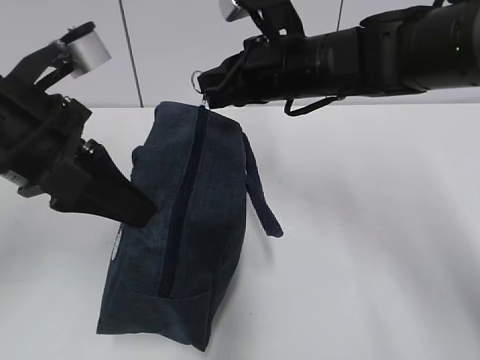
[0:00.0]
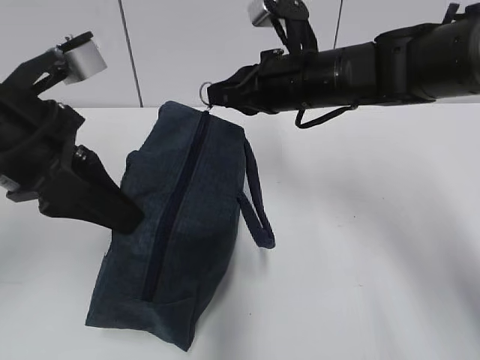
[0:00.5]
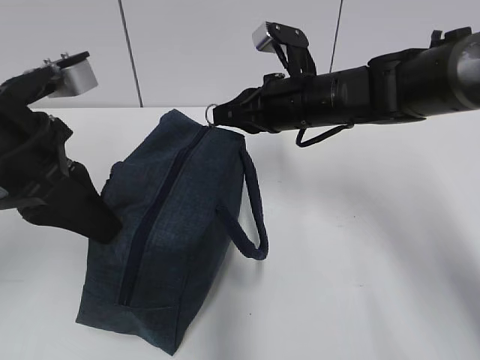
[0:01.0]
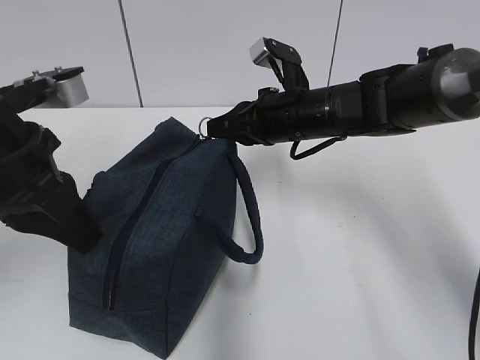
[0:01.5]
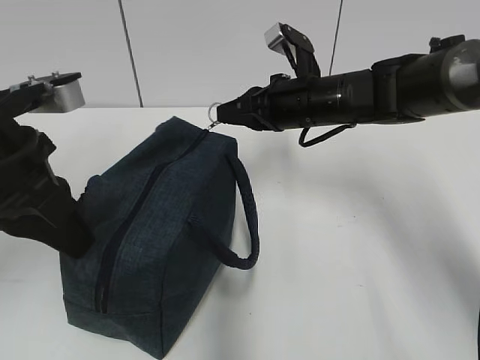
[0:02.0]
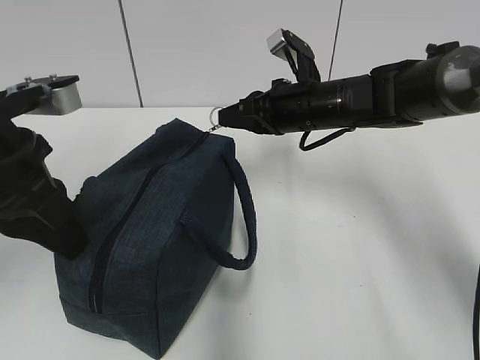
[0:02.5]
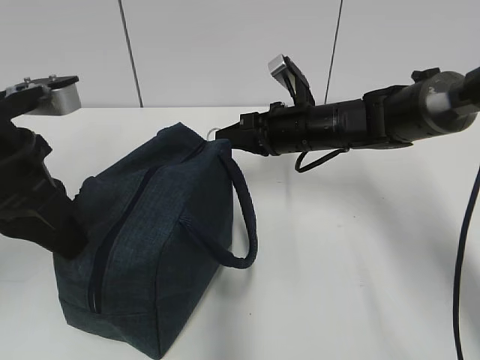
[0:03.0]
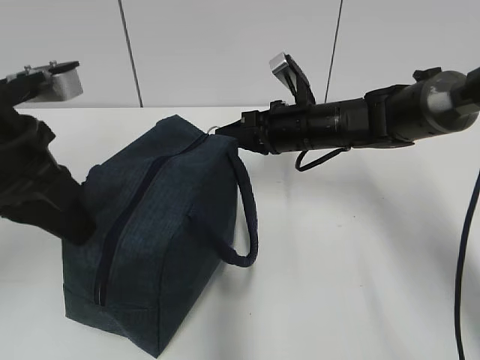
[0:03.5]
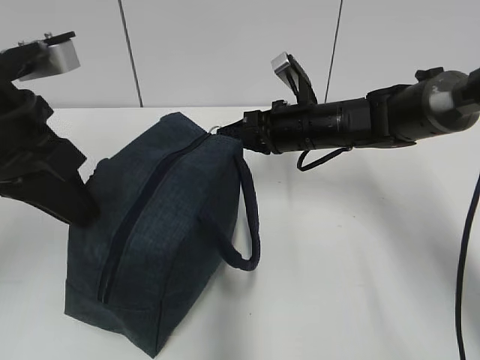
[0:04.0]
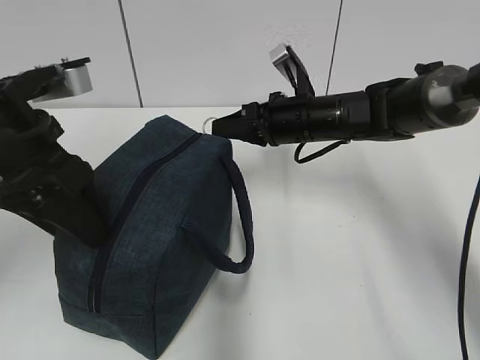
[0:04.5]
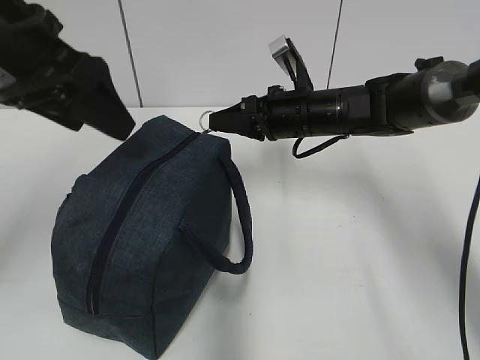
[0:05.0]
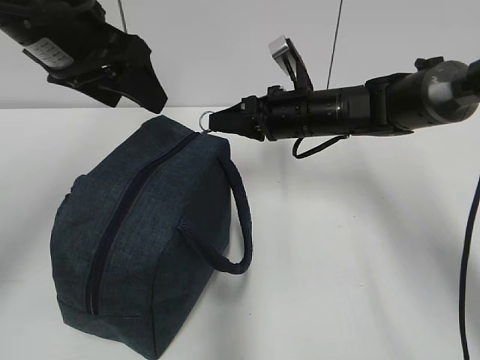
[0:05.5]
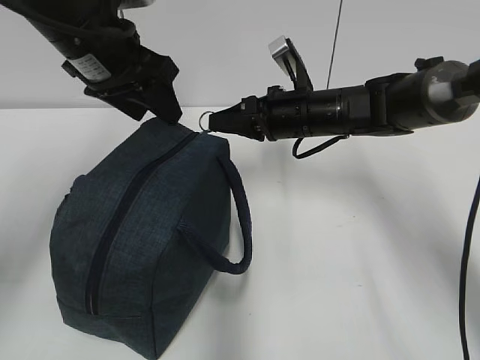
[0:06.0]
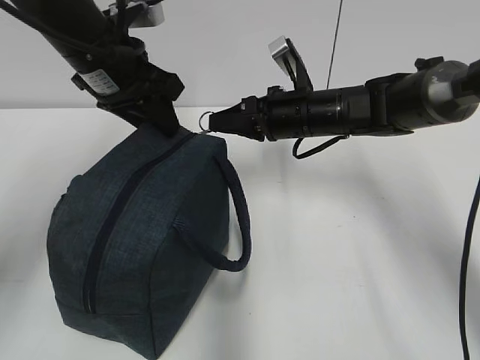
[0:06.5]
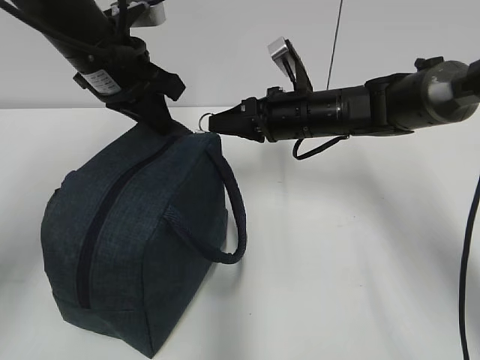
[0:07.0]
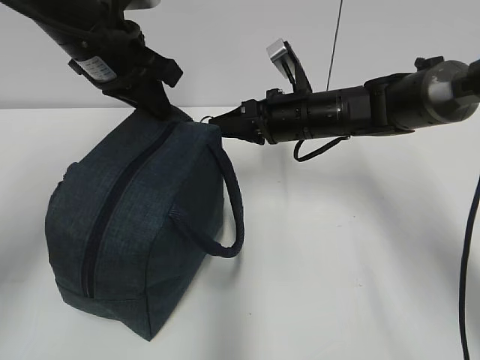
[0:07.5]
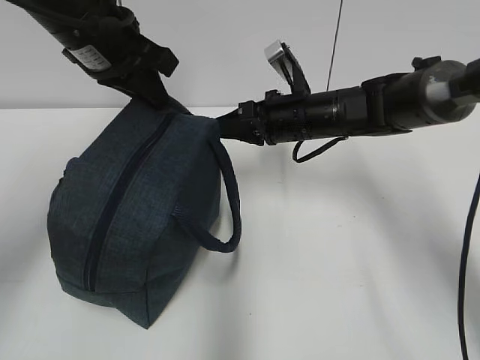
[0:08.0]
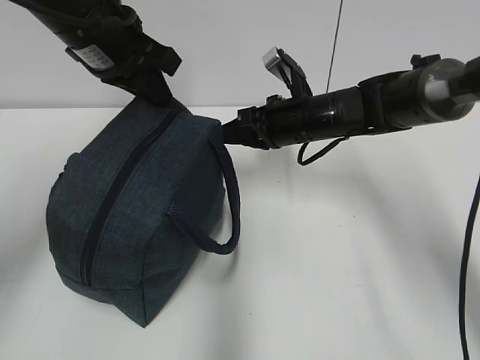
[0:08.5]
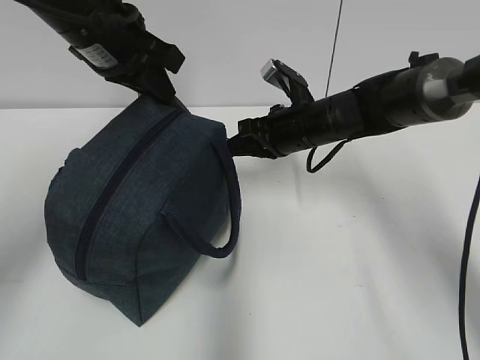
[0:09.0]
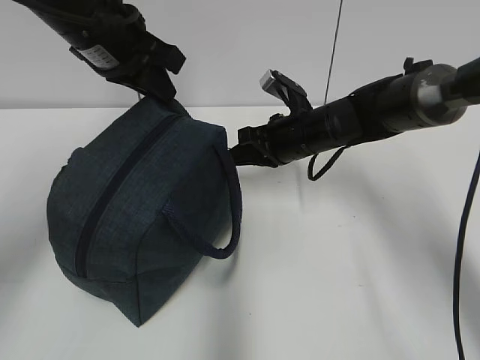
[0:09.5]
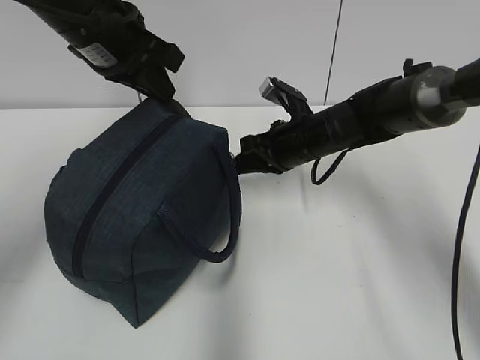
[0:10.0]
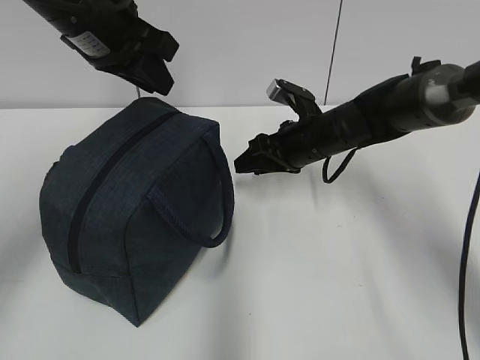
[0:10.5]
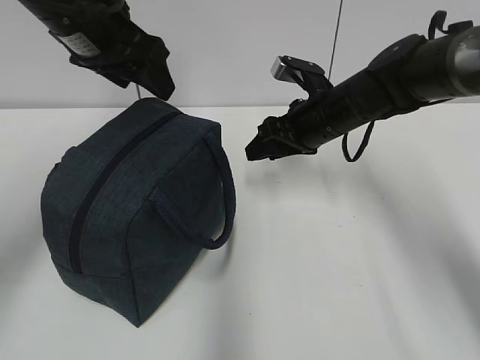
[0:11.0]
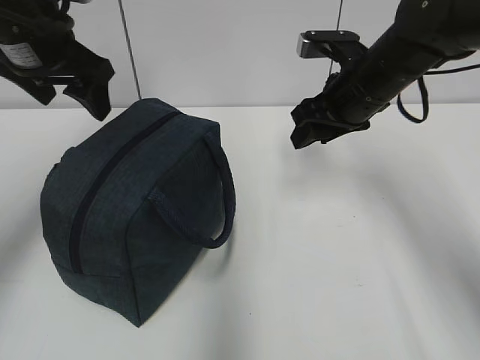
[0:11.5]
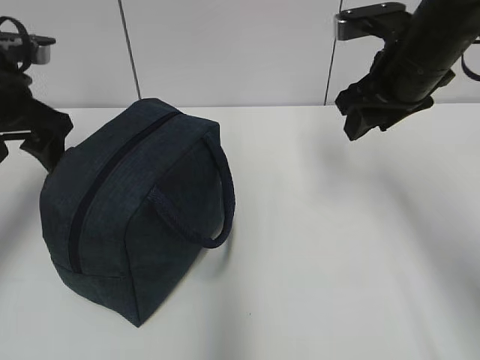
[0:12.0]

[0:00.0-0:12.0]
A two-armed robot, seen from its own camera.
0:00.0 to 0:02.0: The right gripper goes approximately 5 cm downward.
0:02.0 to 0:04.0: The grippers stay close to where they were, moving slightly.
0:04.0 to 0:06.0: The left gripper moves forward, roughly 15 cm, and opens.
0:06.0 to 0:08.0: The left gripper closes.
0:10.0 to 0:12.0: The left gripper travels to the left by about 10 cm, and opens its fingers. The right gripper shifts about 15 cm upward, to the right and backward, and opens up.

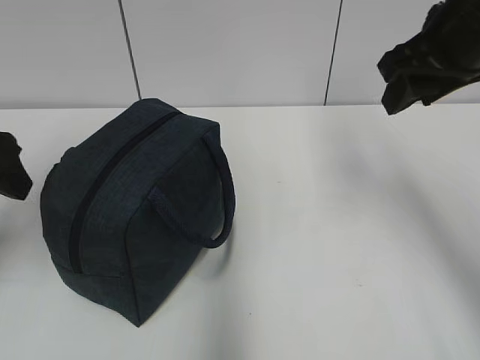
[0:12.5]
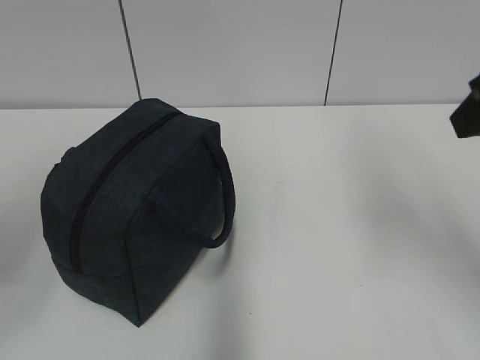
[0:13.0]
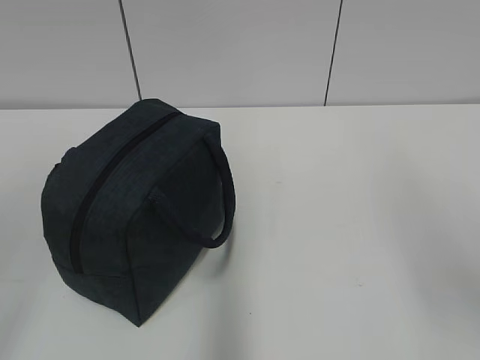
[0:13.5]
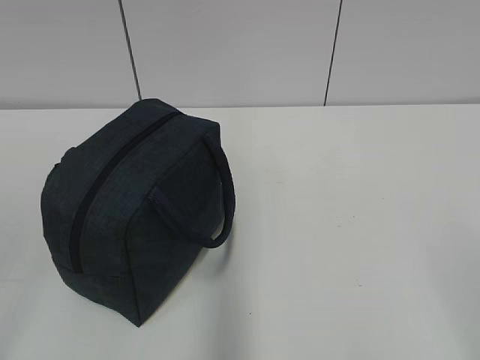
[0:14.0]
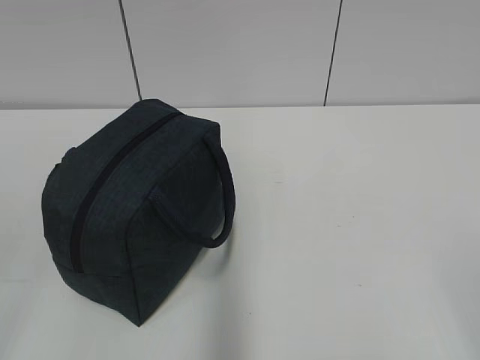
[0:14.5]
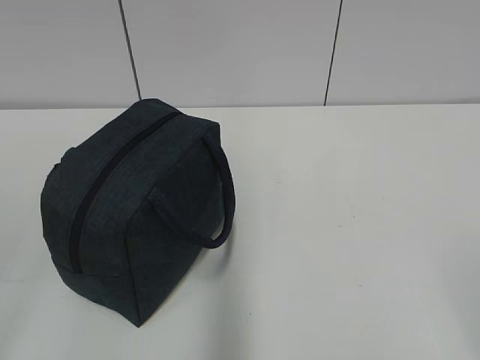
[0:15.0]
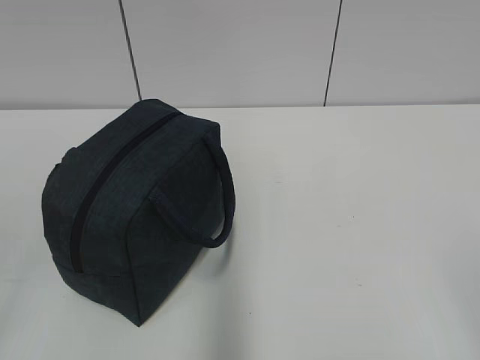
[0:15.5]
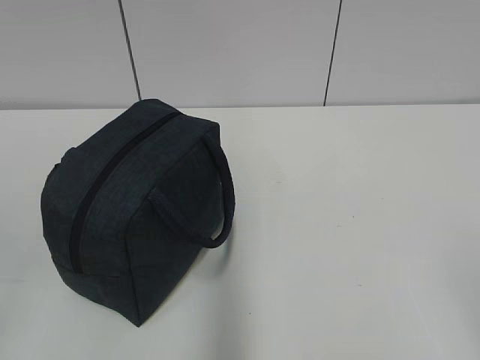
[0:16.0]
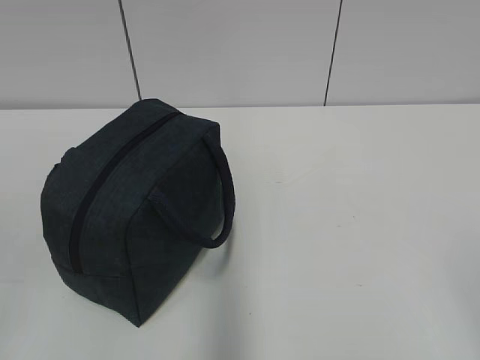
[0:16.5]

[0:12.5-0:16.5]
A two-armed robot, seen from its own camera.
0:12.5 to 0:14.5: Both grippers travel together backward, approximately 30 cm.
